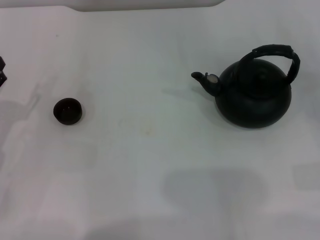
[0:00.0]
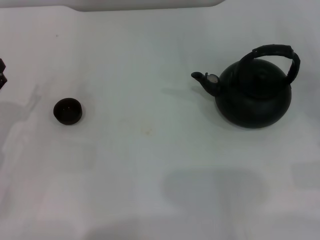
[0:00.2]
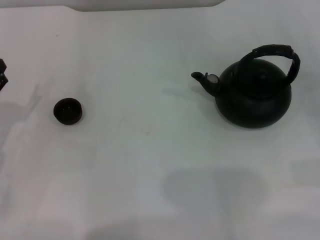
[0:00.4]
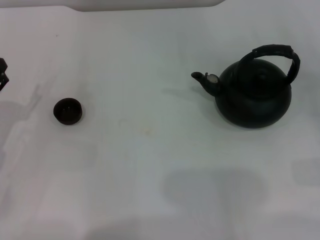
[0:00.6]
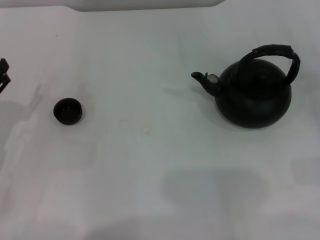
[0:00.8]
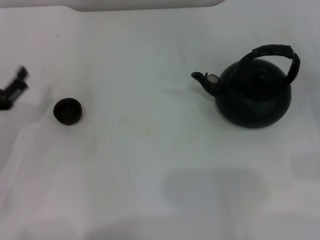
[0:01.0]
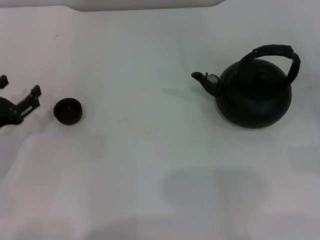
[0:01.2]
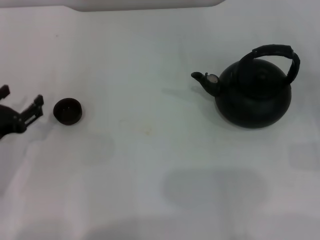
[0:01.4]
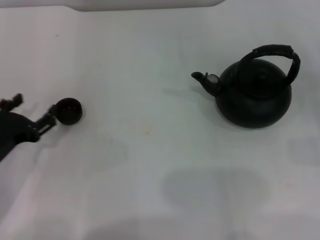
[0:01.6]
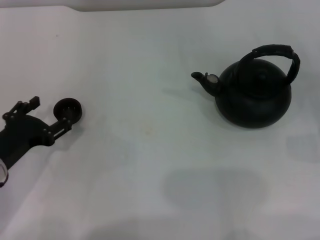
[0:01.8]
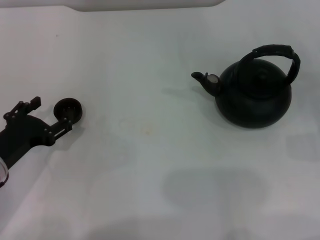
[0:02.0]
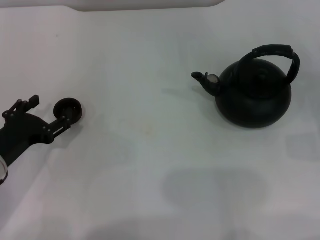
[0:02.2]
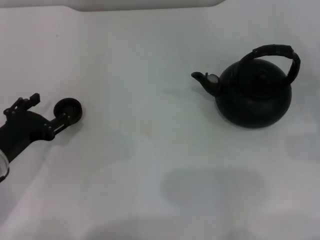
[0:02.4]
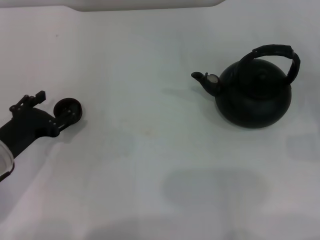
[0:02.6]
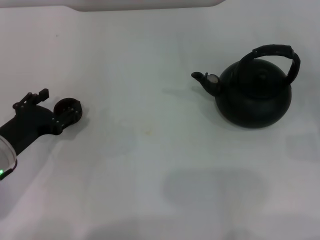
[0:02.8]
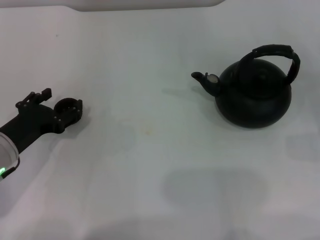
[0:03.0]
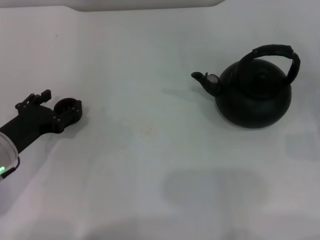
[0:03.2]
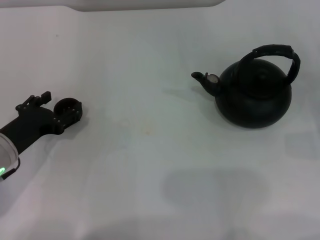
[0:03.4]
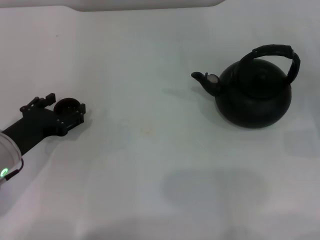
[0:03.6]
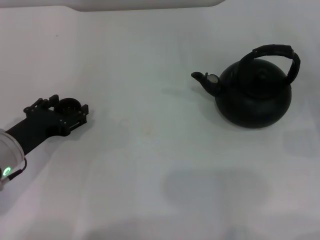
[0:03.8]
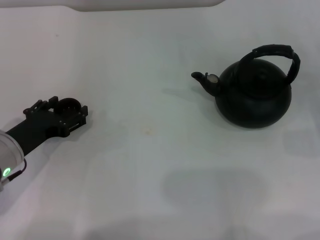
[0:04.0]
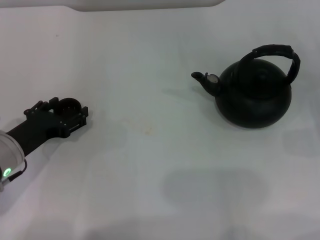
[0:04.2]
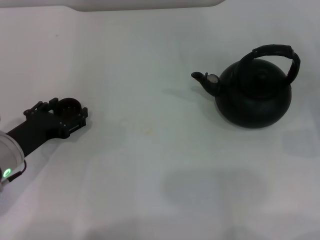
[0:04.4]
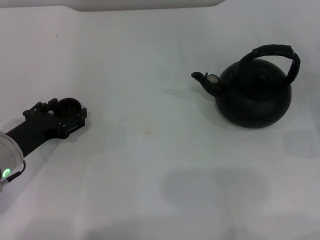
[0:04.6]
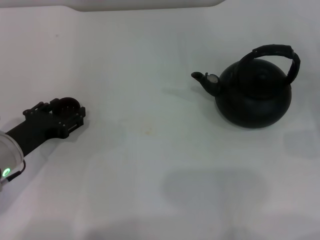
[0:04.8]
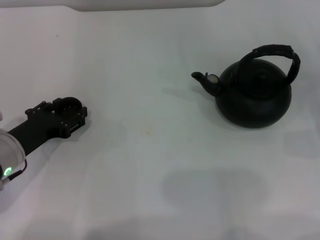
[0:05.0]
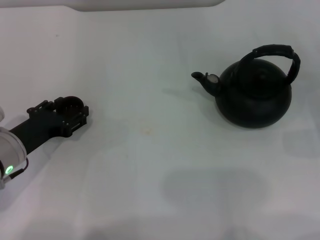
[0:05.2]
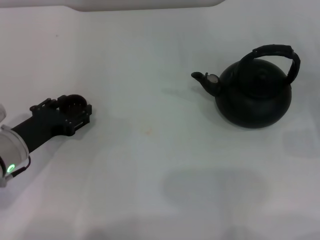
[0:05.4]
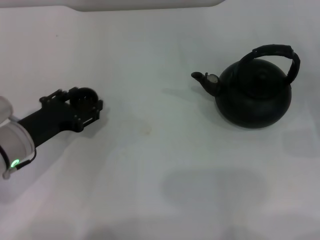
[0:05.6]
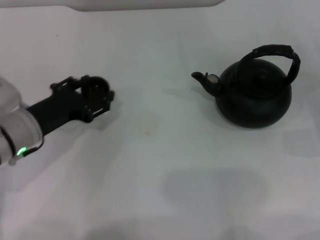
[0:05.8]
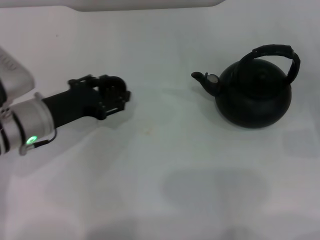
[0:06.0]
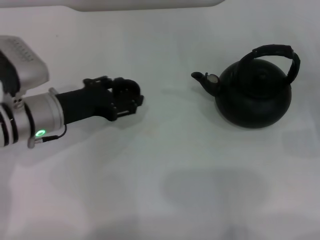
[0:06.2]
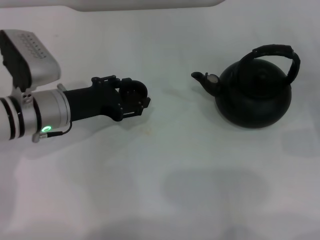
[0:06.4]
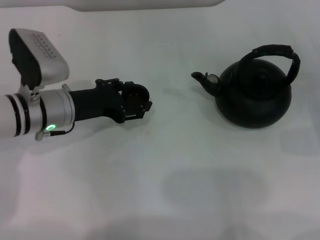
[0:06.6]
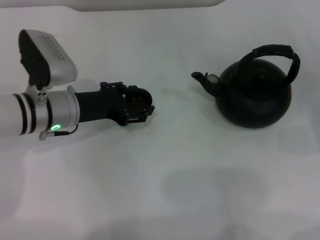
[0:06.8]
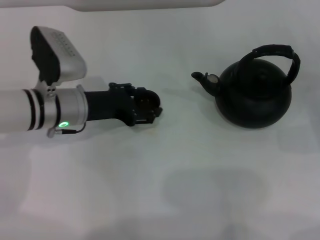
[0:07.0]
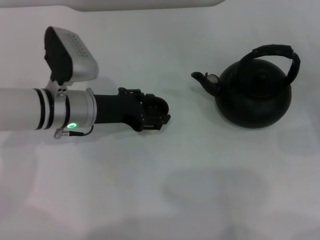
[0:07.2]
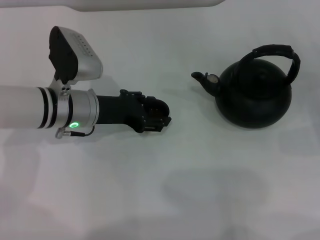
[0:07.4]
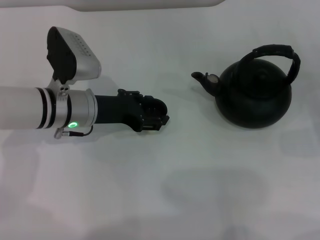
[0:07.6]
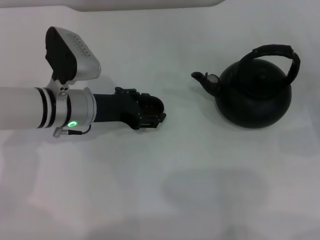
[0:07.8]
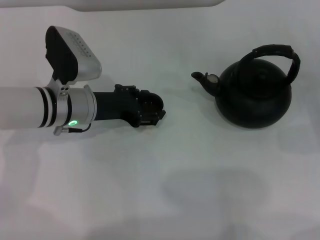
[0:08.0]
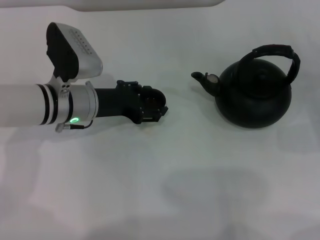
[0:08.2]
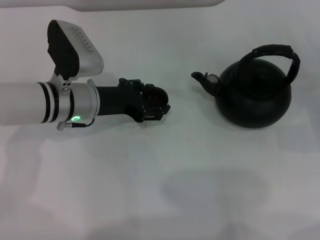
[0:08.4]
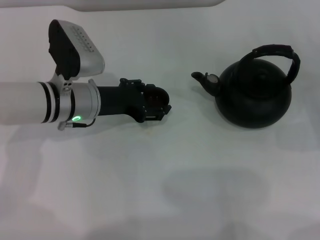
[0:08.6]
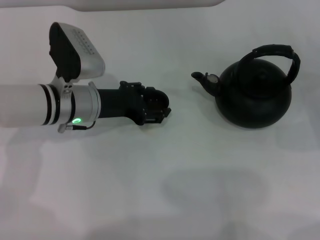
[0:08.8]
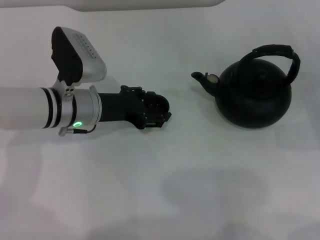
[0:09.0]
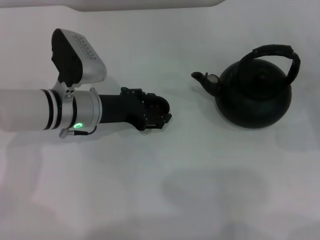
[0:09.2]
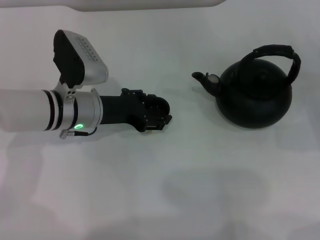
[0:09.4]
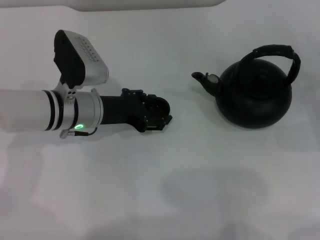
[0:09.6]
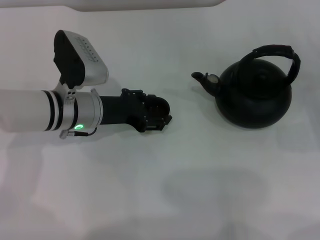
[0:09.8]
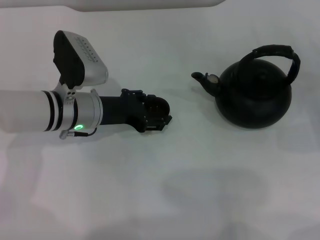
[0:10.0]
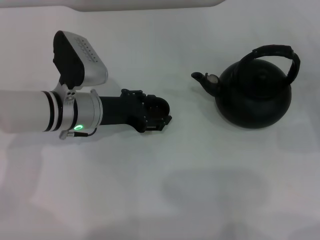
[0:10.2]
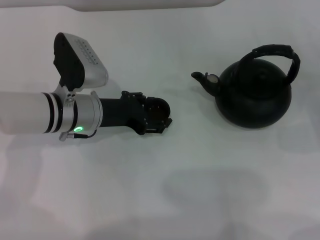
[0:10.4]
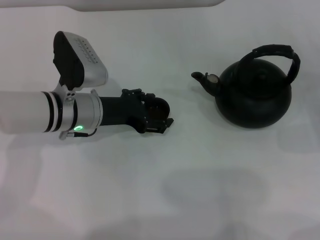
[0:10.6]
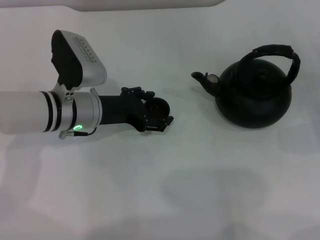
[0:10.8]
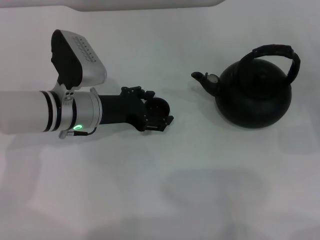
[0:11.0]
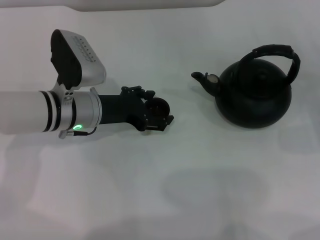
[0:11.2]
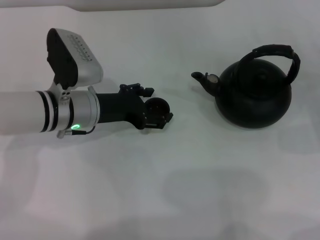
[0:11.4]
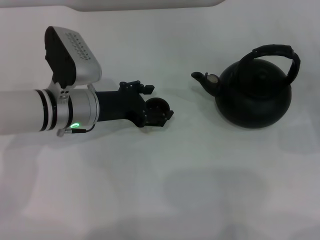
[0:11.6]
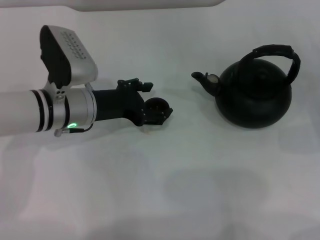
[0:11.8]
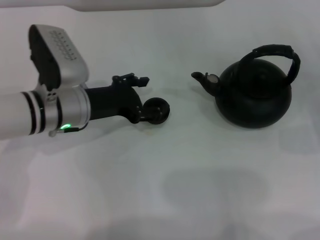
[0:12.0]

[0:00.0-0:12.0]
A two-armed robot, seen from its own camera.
Task of the whole recording: Grasp the handle of the teapot with one hand and pour tea into the teacup.
Step, 0:00.0 to 0:05.8: Pick up the teacup with the left gripper.
0:00.0 to 0:01.6: The left gripper shifts by approximately 5 cm.
0:01.6 to 0:04.4: The grippers make only small movements.
0:04.4 to 0:06.0: The left gripper ends up approximately 5 cm from where it was, and closes.
0:06.0 to 0:07.6: The left gripper moves to the right, some 5 cm.
0:07.6 to 0:09.0: The grippers make only small movements.
0:09.0 to 0:10.4: Both grippers stay put.
0:10.4 to 0:12.0: The left gripper opens its fingers.

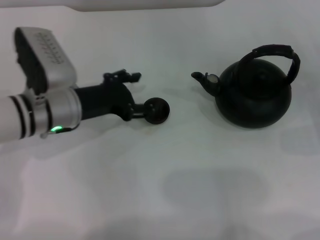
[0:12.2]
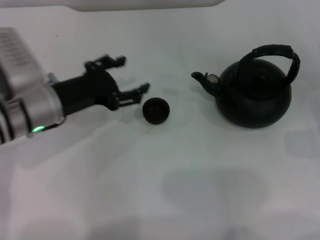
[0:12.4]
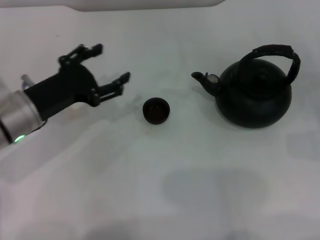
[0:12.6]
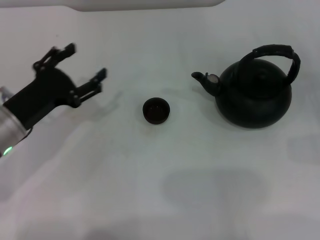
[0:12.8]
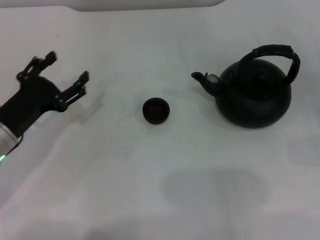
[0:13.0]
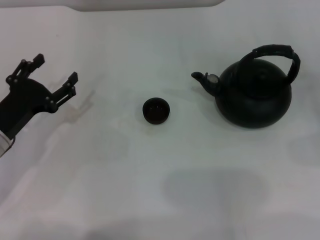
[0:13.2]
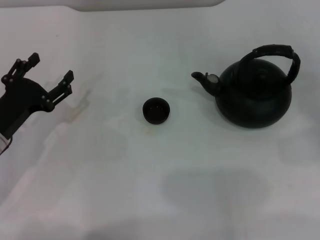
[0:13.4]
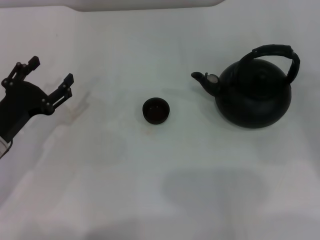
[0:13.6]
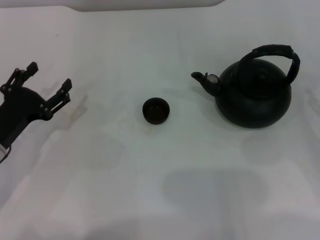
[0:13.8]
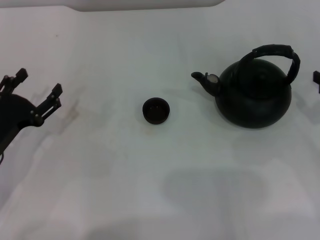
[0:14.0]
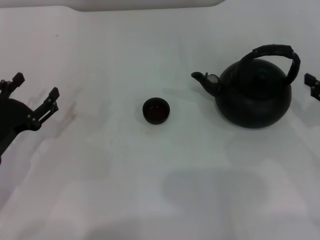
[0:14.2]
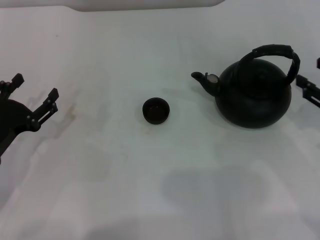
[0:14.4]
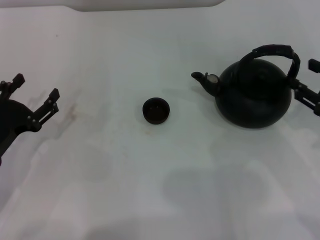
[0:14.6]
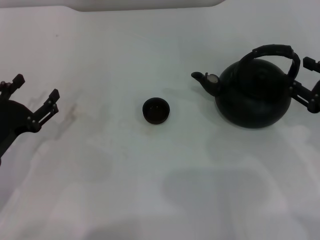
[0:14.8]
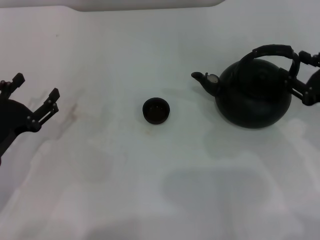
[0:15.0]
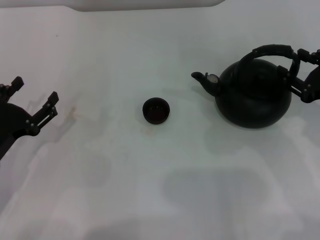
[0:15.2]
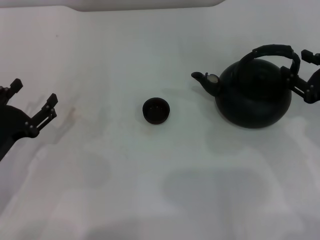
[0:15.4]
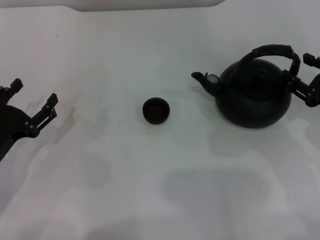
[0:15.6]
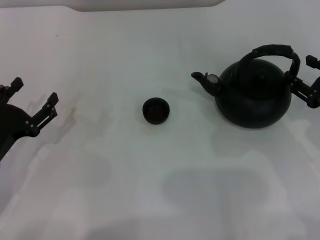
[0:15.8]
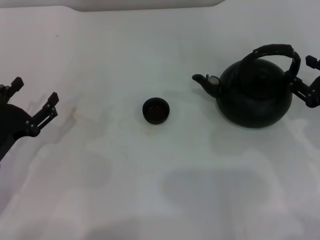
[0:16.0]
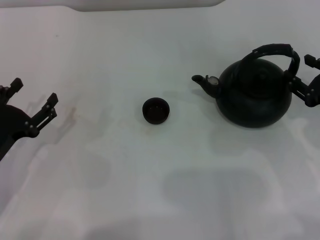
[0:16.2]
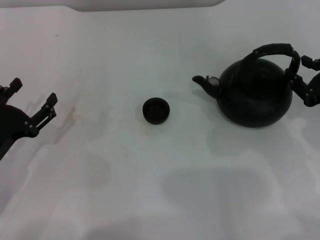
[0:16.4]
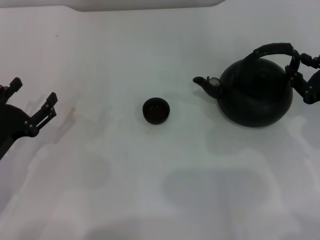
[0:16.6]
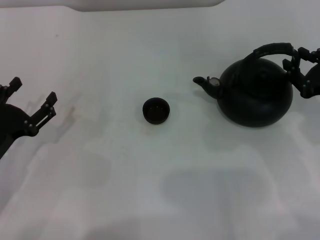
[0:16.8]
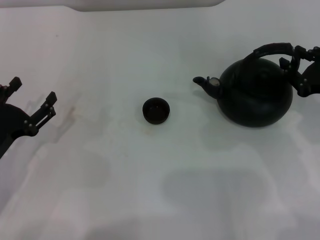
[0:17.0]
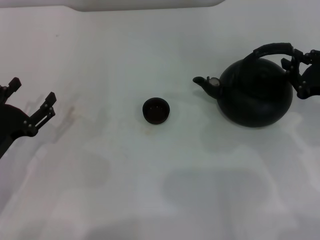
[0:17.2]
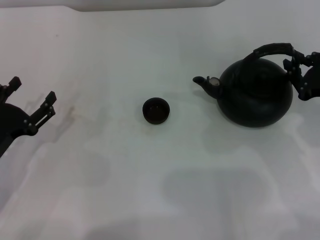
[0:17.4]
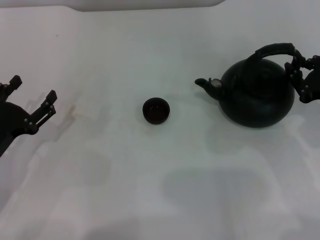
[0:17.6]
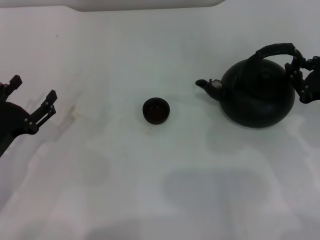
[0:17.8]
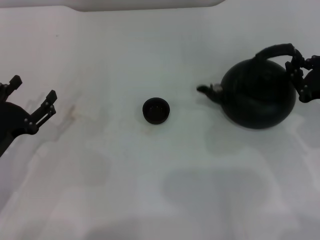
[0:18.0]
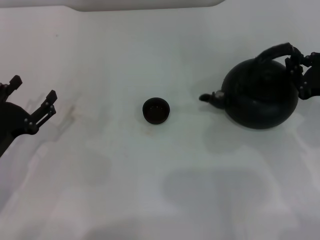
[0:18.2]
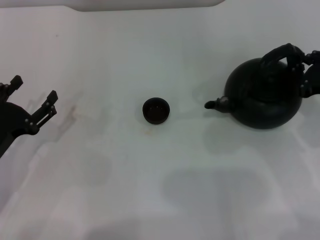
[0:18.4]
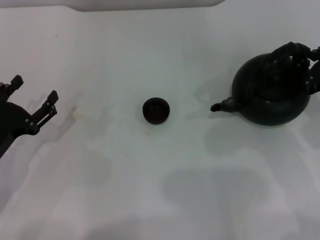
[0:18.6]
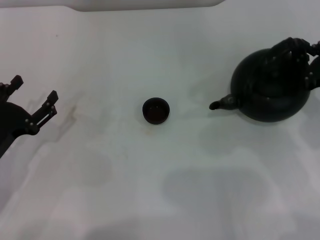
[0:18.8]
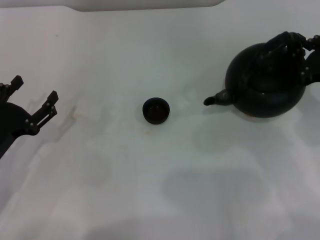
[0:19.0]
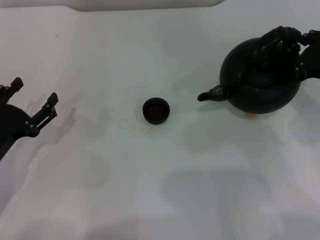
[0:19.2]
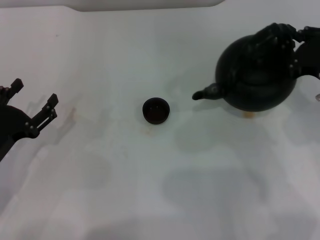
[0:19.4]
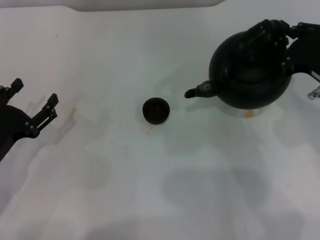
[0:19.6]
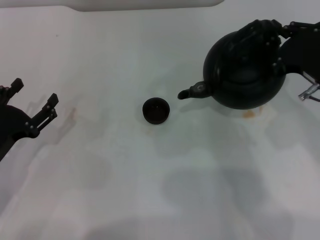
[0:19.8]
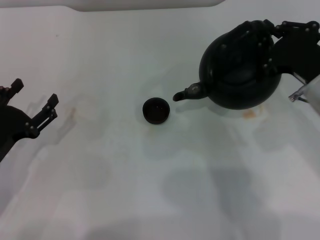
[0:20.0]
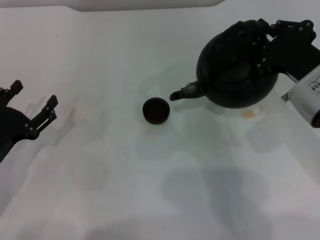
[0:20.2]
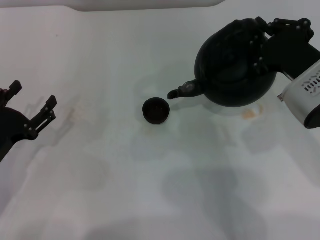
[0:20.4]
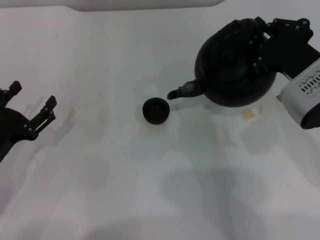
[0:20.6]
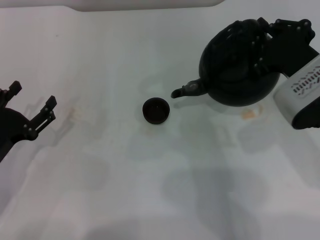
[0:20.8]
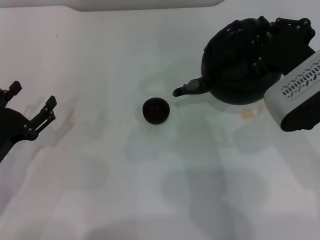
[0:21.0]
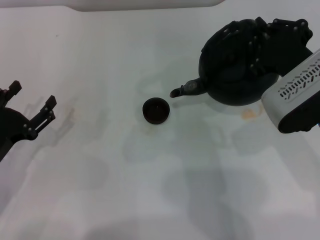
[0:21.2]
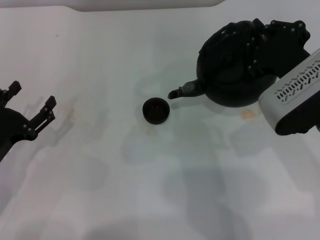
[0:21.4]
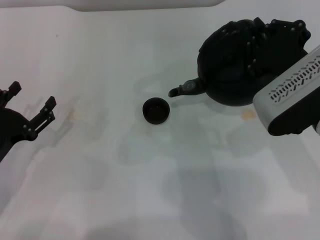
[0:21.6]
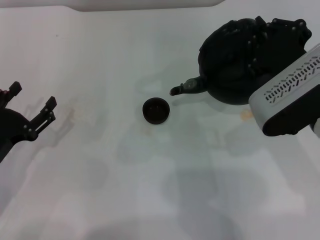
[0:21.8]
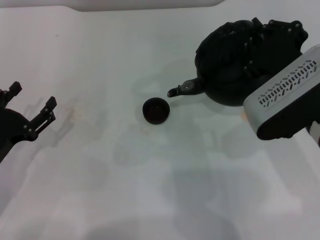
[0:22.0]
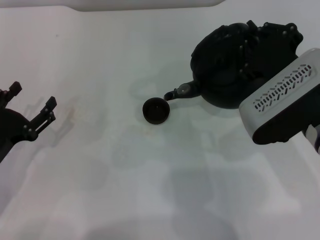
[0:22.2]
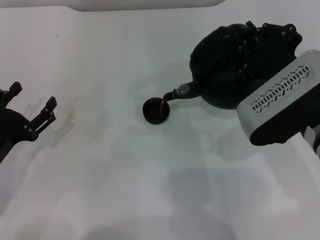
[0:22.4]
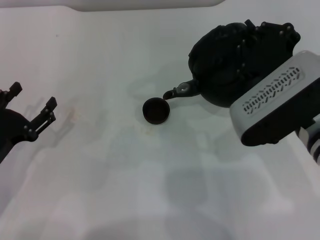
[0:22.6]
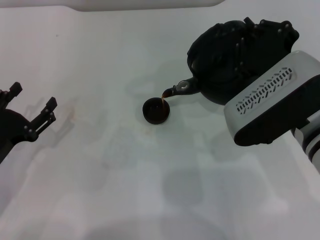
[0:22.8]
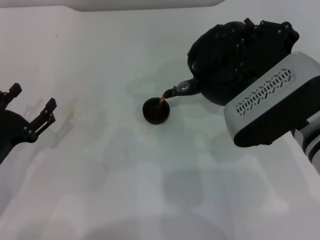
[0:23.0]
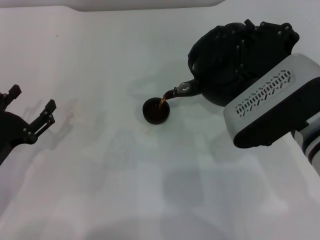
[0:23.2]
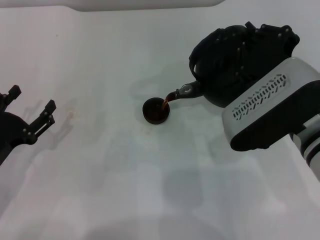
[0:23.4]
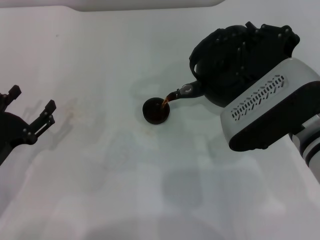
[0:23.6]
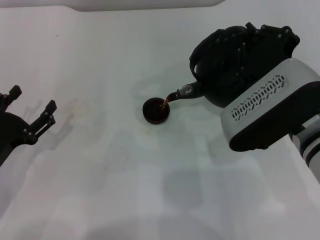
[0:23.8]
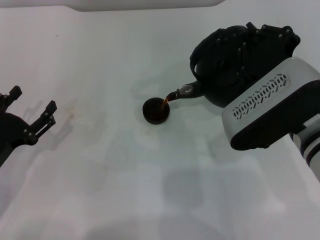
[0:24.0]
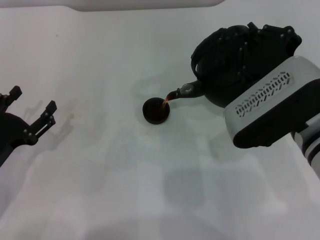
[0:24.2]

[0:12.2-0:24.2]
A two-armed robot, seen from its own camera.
Task of the whole recording: Grasp the handle of the teapot with one hand and pour tea into the teacup.
Step, 0:12.6 to 0:20.2: Pick up the teapot with the right gripper.
0:12.2 to 0:13.8: The right gripper heads upward, covering about 5 cm, while the left gripper is displaced to the left, backward and downward by approximately 15 cm.
0:13.8 to 0:15.2: The right gripper shifts some 5 cm to the left.
0:15.2 to 0:16.6: The grippers move only a little.
0:16.6 to 0:18.2: The right gripper closes its fingers.
0:18.2 to 0:19.8: The right gripper shifts roughly 5 cm to the left.
0:19.8 to 0:21.2: The right gripper changes place by about 5 cm.
0:21.2 to 0:22.6: There are only small adjustments of the grippers.
0:22.6 to 0:24.2: Neither gripper changes place.
